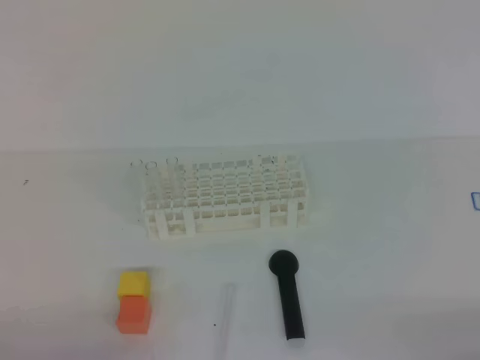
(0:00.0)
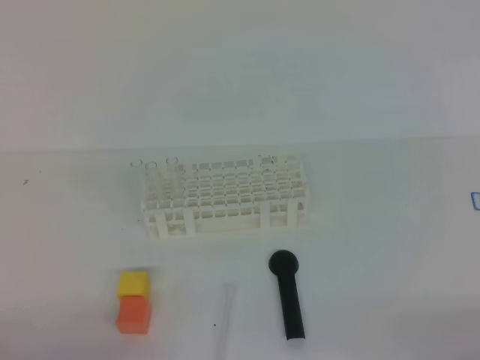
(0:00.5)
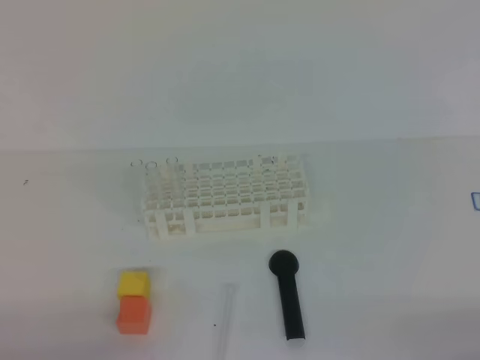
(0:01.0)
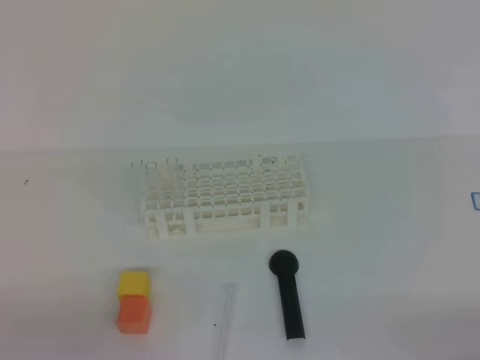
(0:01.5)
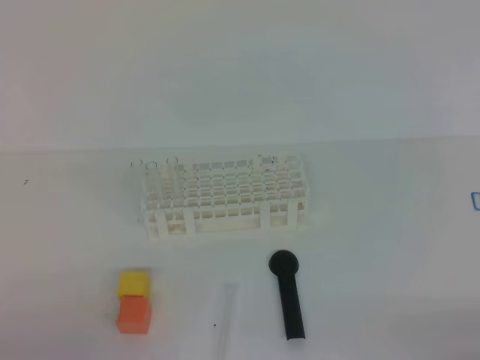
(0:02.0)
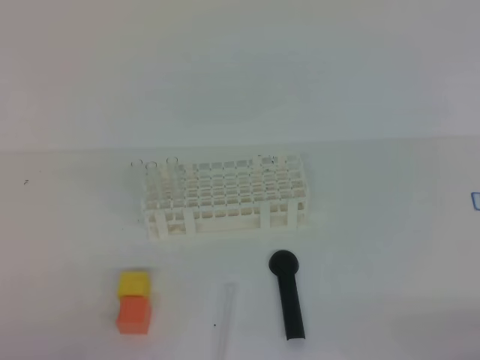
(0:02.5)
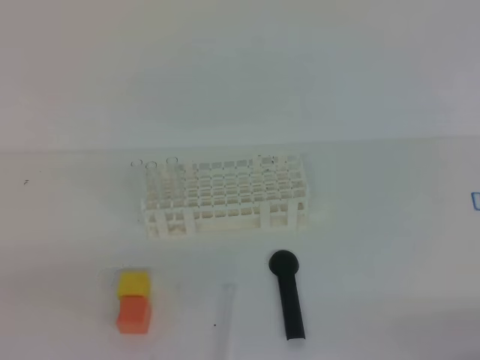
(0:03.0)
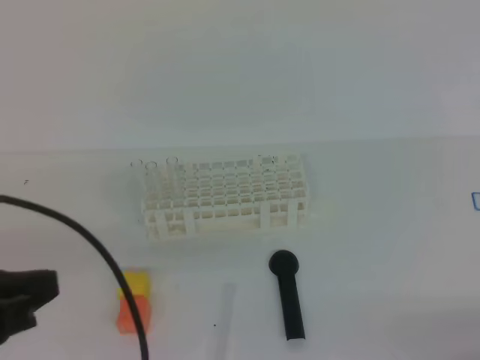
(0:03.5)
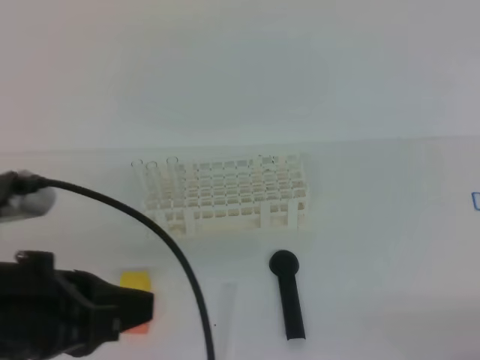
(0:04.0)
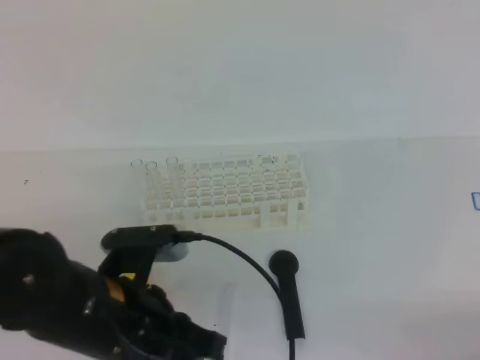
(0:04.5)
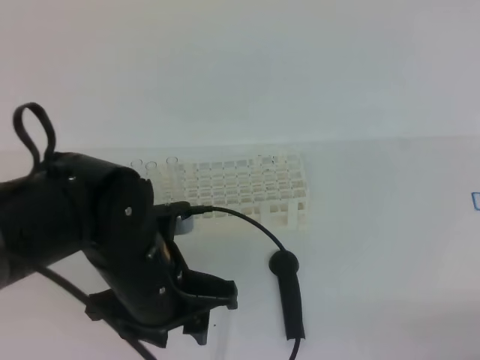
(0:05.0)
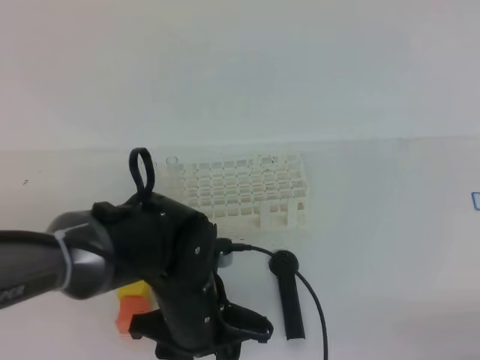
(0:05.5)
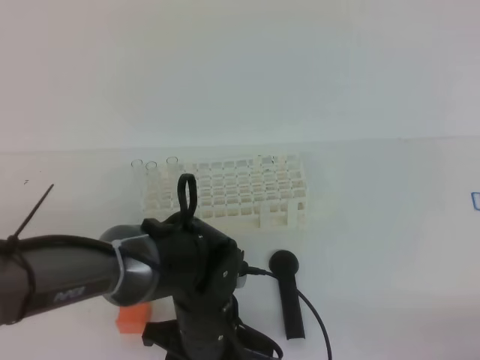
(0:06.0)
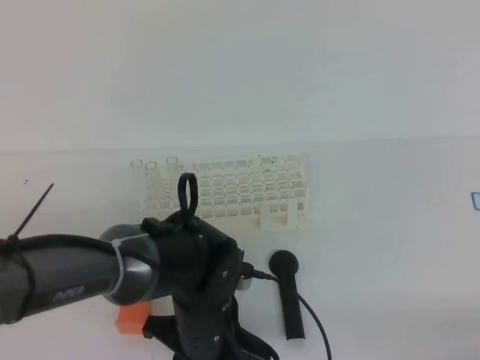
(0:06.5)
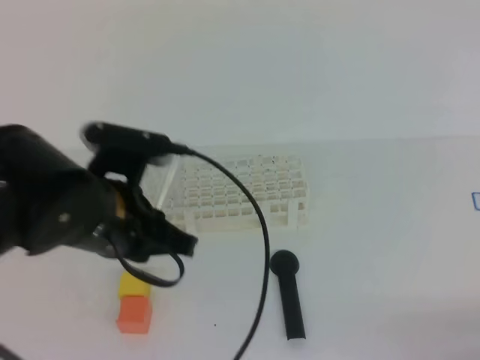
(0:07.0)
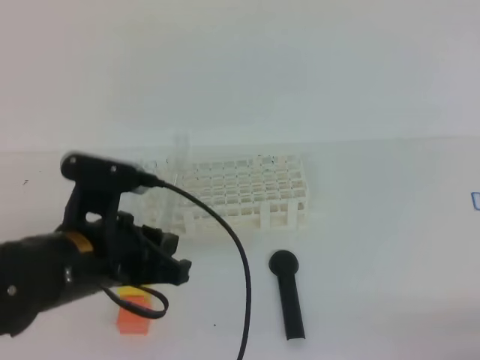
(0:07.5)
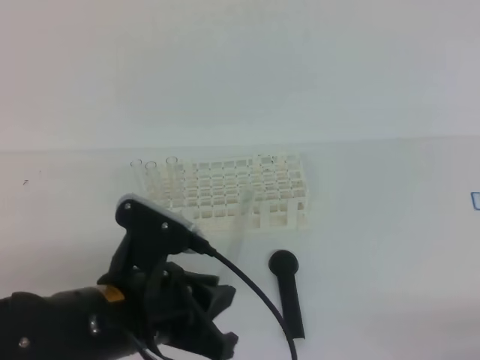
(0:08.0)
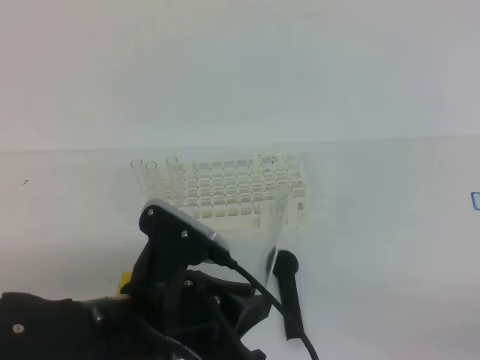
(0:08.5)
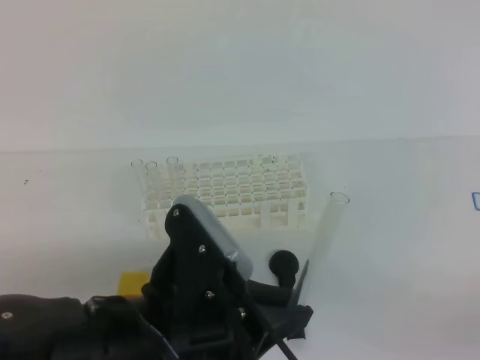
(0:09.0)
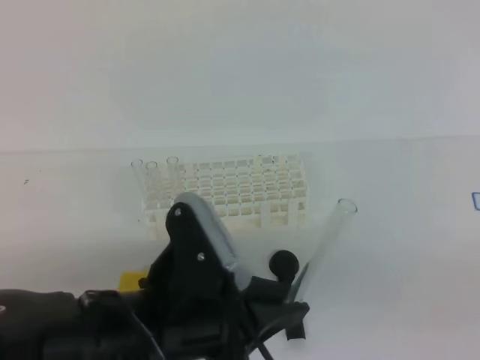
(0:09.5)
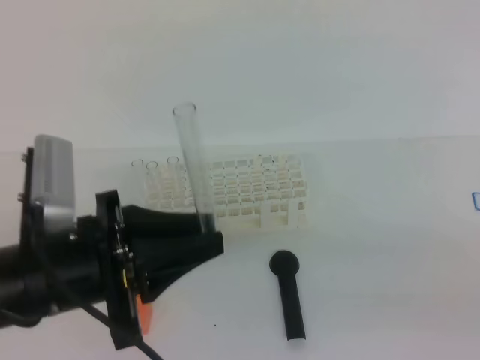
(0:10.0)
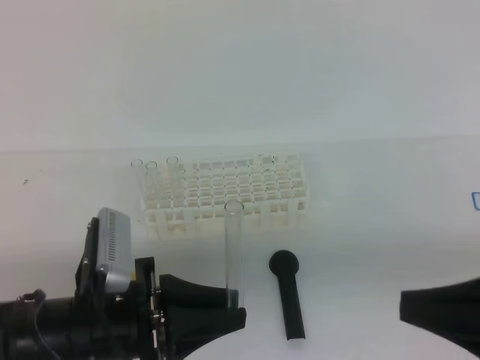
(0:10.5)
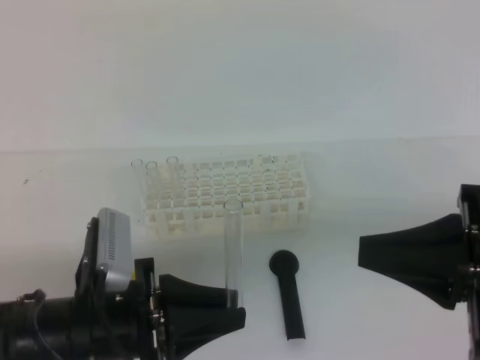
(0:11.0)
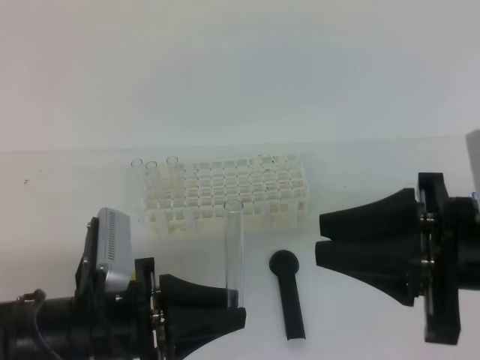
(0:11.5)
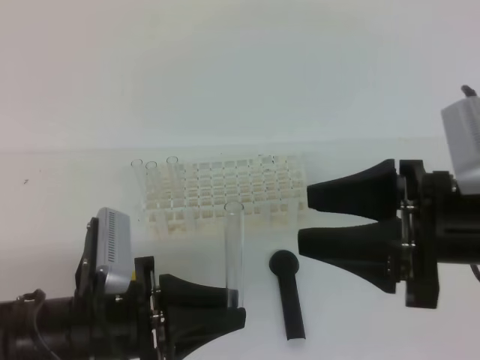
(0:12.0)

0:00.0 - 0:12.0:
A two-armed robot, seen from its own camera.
0:02.0 - 0:04.0: The left gripper moves upward, to the right and forward, some 15 cm.
0:04.0 - 0:06.0: The left gripper goes roughly 25 cm downward, to the right and forward, and opens its fingers.
0:06.0 - 0:08.0: The left gripper shifts roughly 15 cm upward, to the left and backward, and closes its fingers.
0:08.0 - 0:10.0: The right gripper heads upward and to the left, covering about 10 cm.
0:10.0 - 0:12.0: The right gripper moves forward and to the left, roughly 15 cm, and opens up. Meanwhile the left gripper heads downward, covering approximately 5 cm.

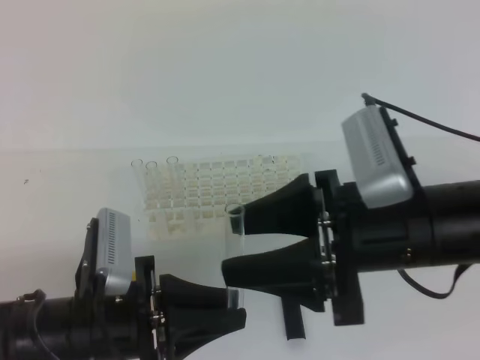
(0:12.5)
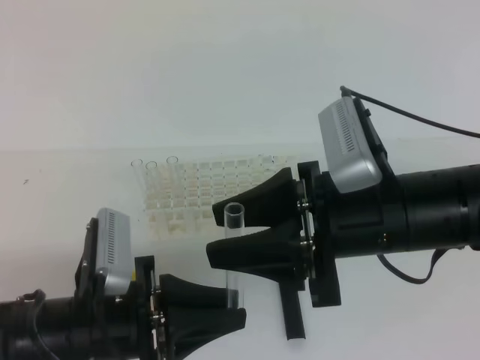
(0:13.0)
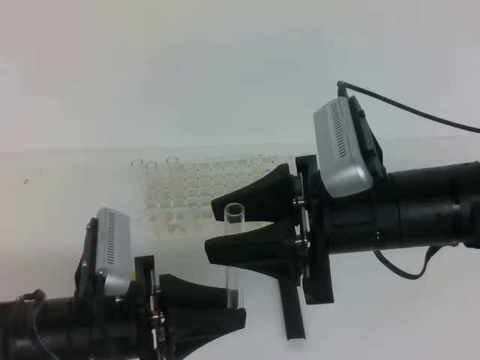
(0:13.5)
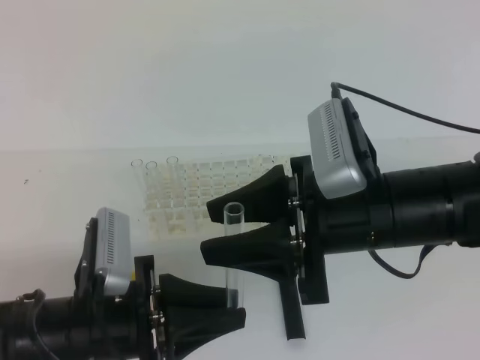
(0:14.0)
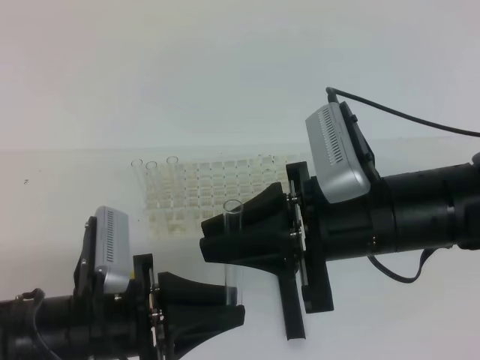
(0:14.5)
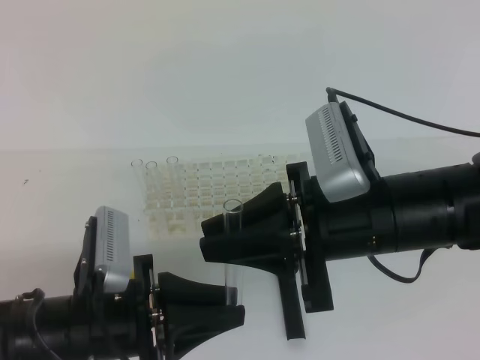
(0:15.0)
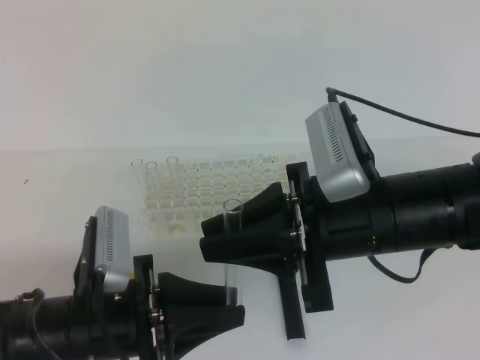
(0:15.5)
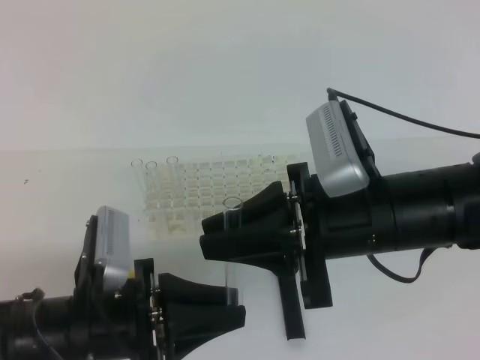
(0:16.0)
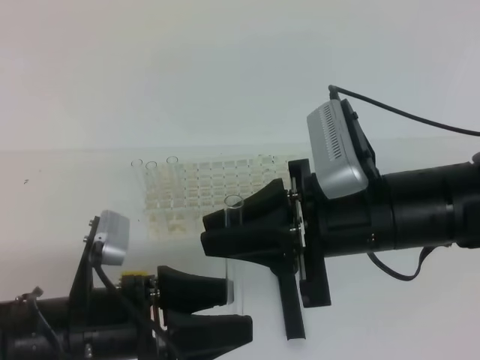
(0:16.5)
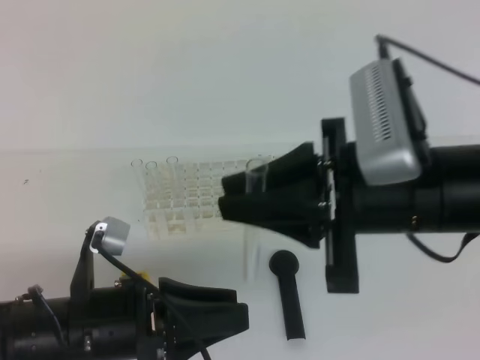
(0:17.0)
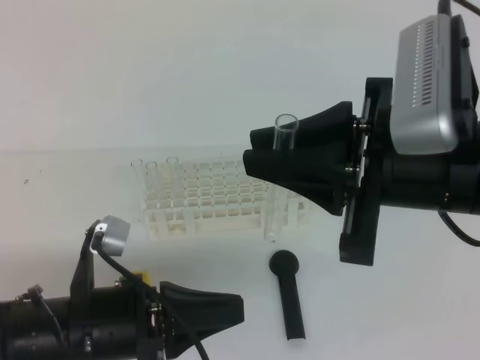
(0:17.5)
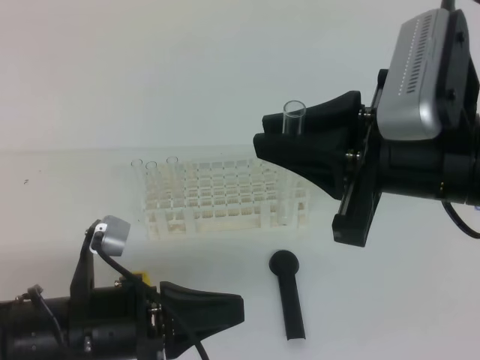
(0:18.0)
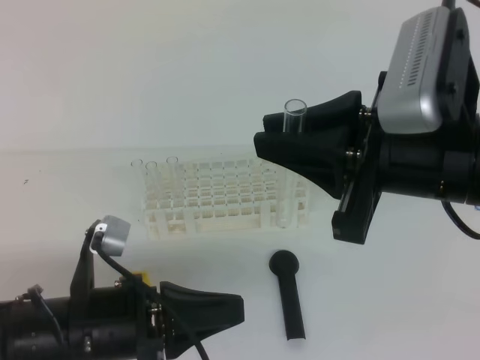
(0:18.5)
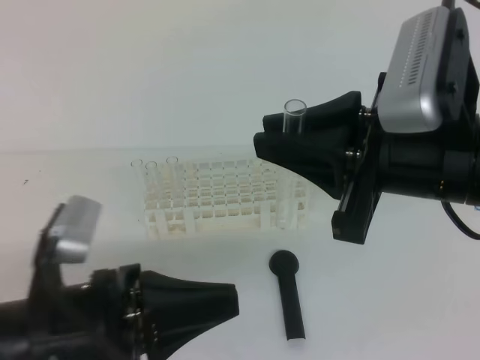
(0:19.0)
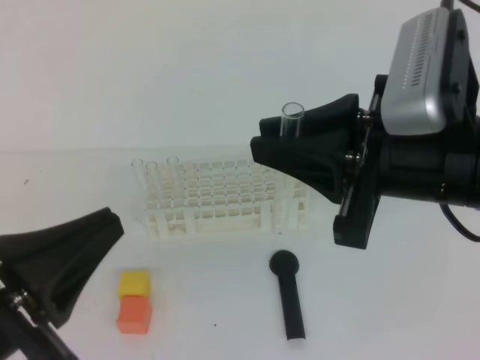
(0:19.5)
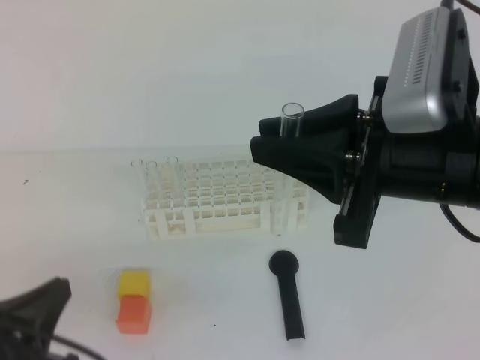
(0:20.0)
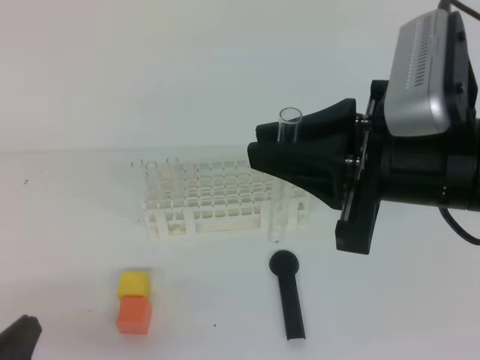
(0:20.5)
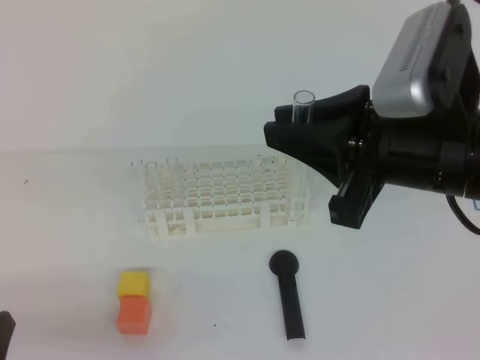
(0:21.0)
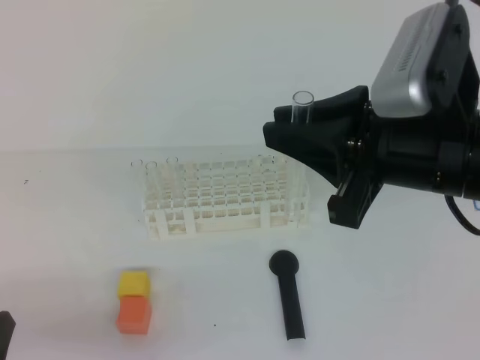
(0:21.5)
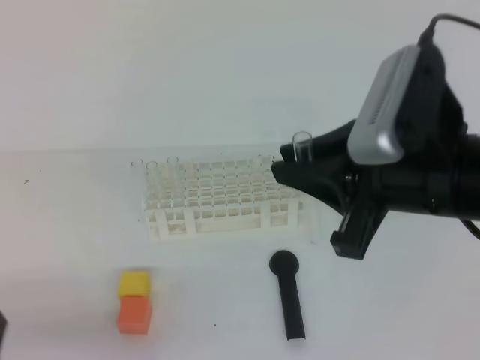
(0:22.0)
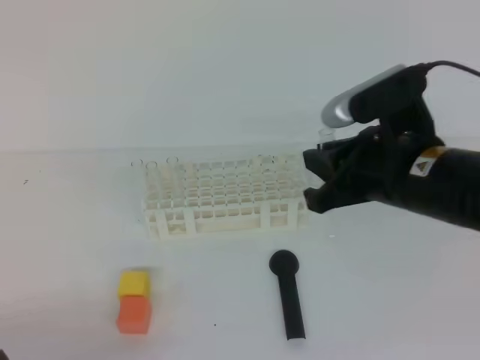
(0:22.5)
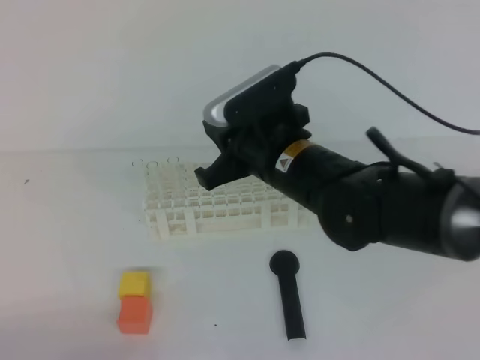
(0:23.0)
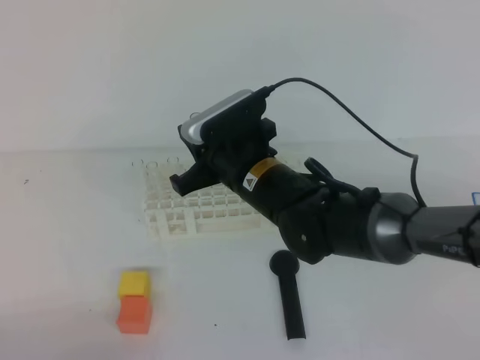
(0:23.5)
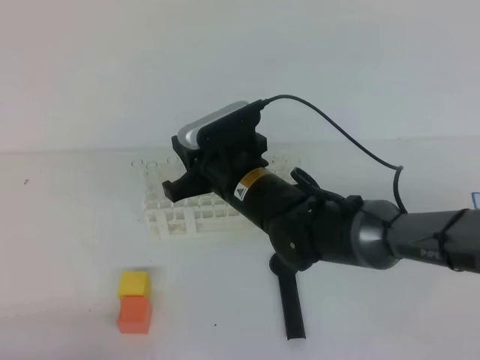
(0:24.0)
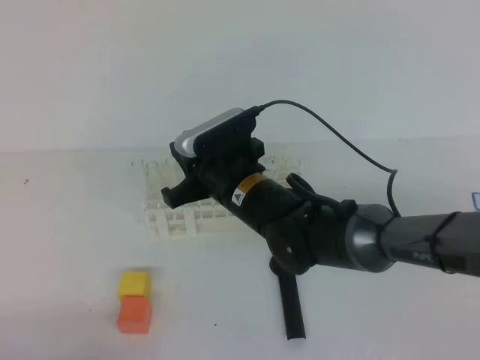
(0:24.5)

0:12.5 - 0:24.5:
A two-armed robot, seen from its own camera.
0:12.5 - 0:14.5: The right gripper closes its fingers.
0:14.5 - 0:16.5: The left gripper opens.
0:16.5 - 0:18.5: The right gripper heads upward, covering approximately 5 cm; the left gripper closes up.
0:18.5 - 0:20.5: The left gripper goes approximately 15 cm to the left and backward, and goes upward and returns, approximately 10 cm each way.
0:20.5 - 0:22.5: The right gripper travels downward and forward by some 10 cm.
0:22.5 - 0:24.5: The right gripper is displaced to the left, downward and forward by about 20 cm.

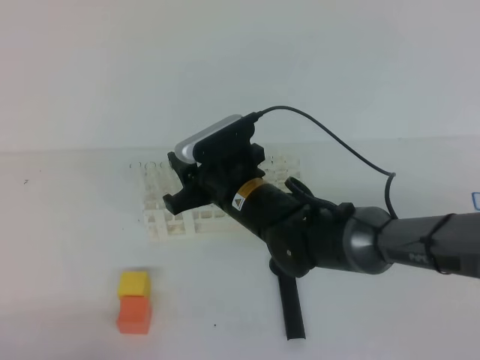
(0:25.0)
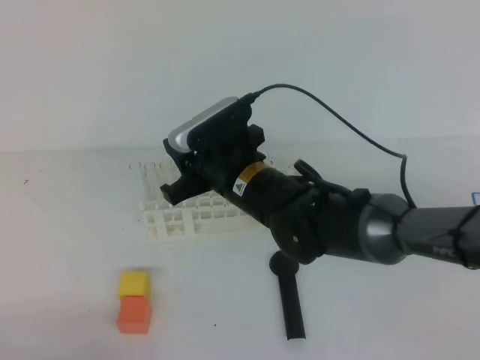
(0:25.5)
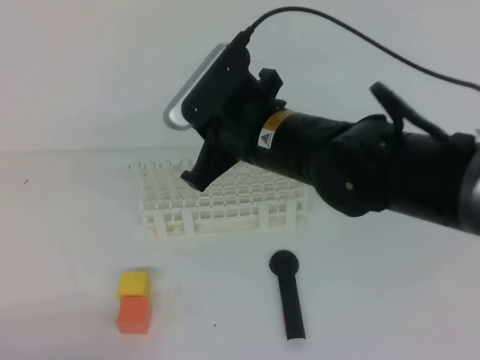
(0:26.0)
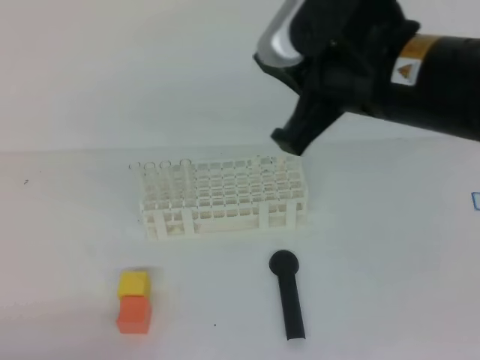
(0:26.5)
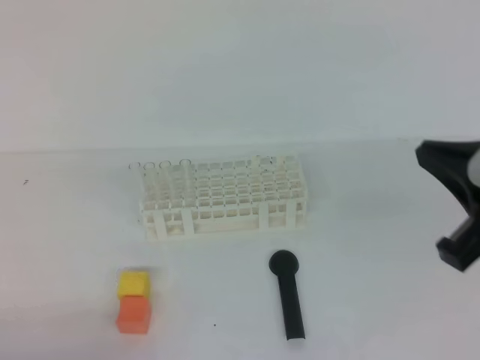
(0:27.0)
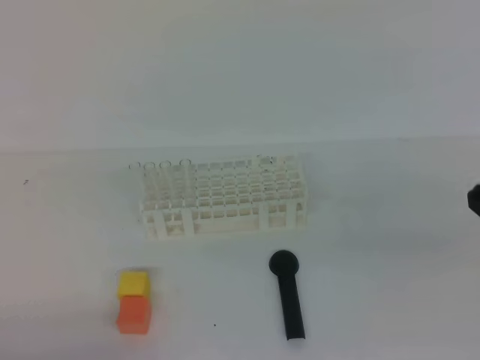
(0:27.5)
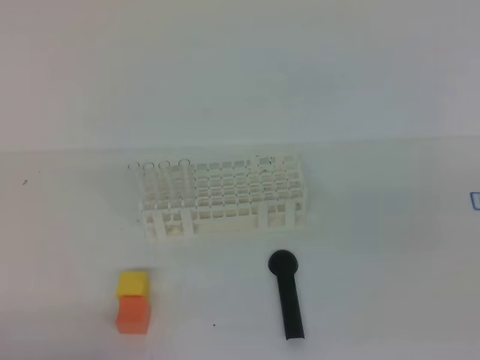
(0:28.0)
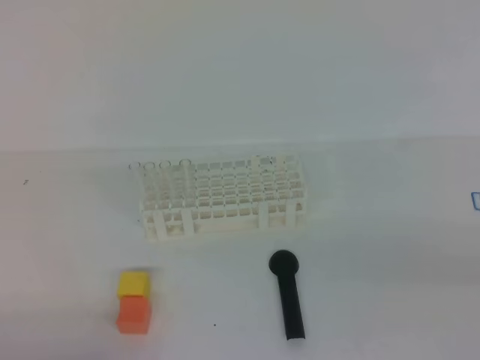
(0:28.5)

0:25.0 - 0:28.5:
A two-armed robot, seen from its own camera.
0:25.0 - 0:27.0: The right gripper shifts roughly 30 cm to the right, backward and upward, and closes up.
0:27.0 - 0:28.5: The right gripper shifts roughly 15 cm to the right, backward and downward.
